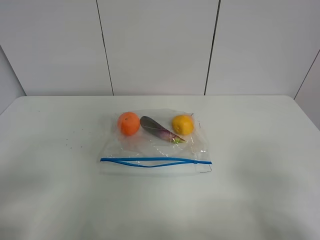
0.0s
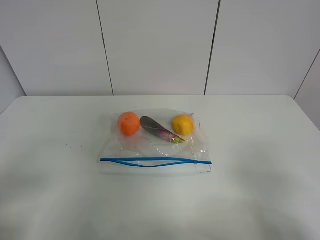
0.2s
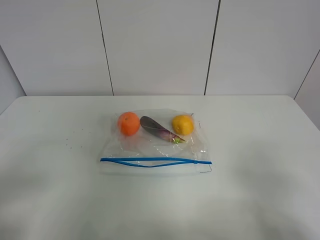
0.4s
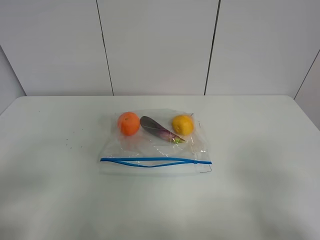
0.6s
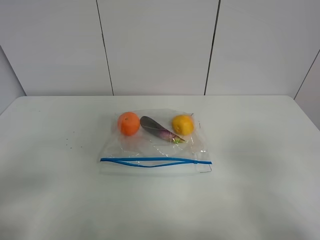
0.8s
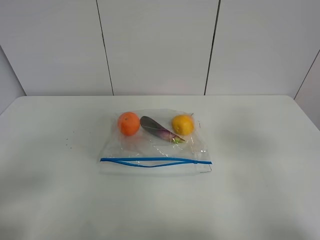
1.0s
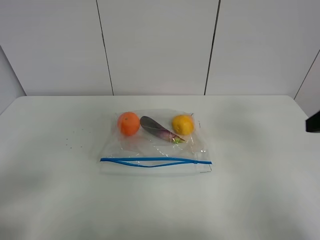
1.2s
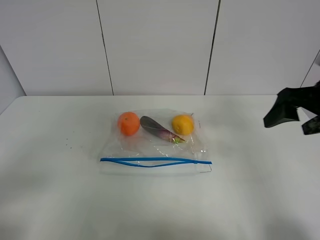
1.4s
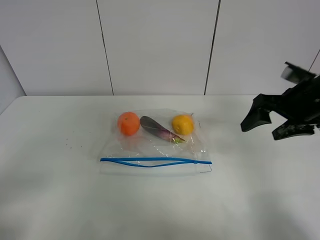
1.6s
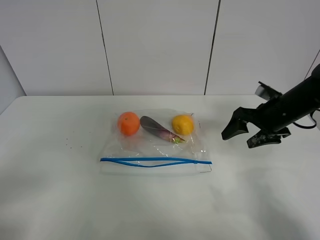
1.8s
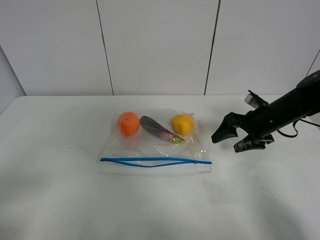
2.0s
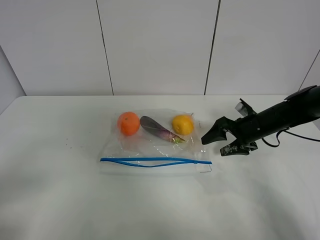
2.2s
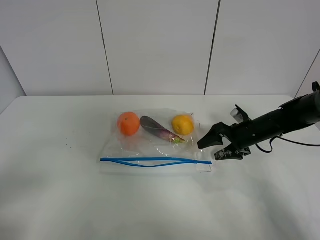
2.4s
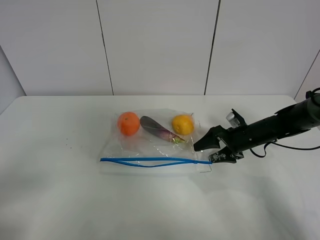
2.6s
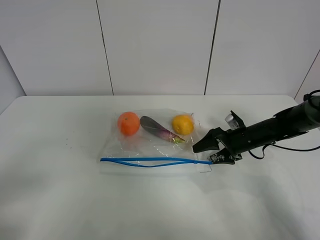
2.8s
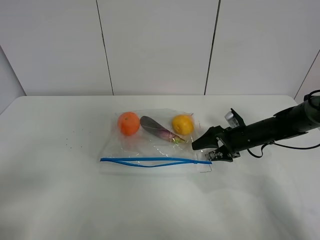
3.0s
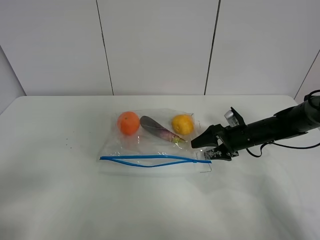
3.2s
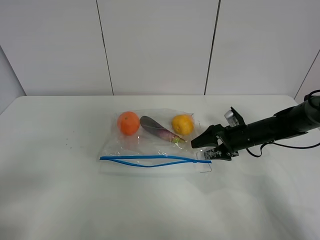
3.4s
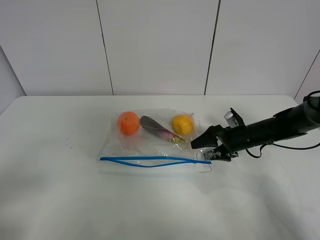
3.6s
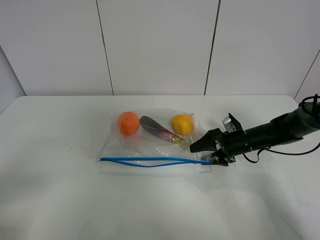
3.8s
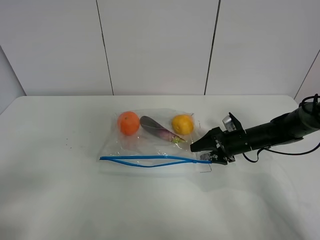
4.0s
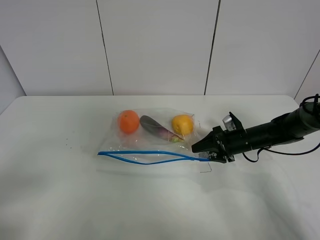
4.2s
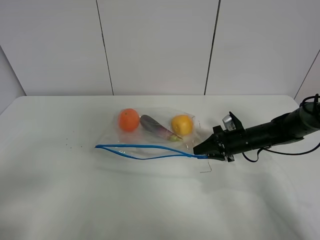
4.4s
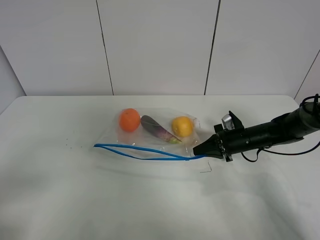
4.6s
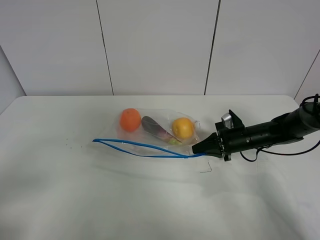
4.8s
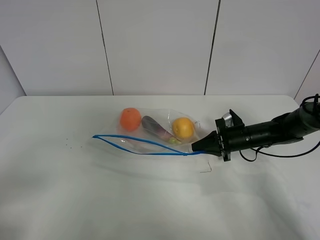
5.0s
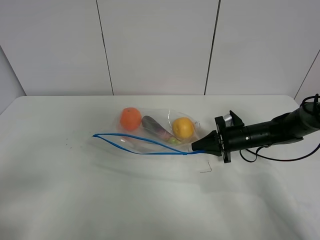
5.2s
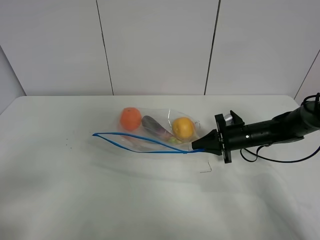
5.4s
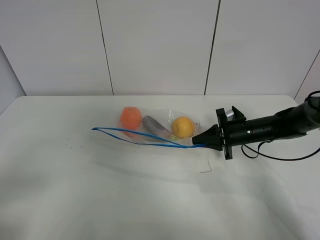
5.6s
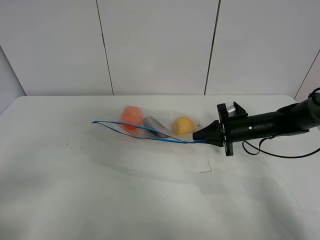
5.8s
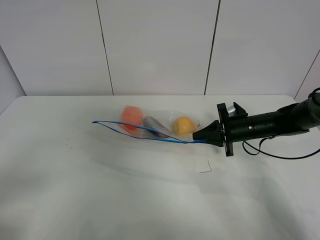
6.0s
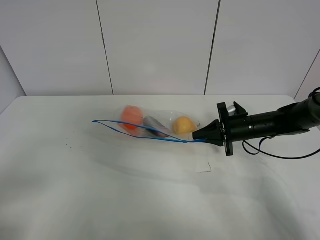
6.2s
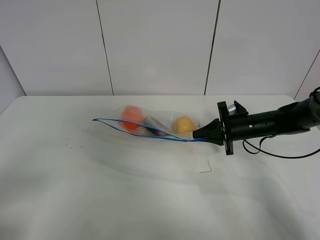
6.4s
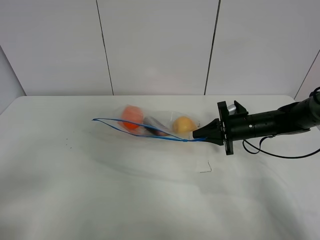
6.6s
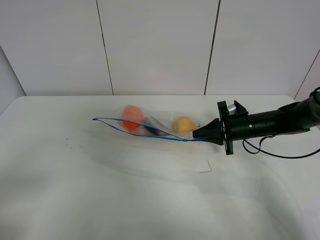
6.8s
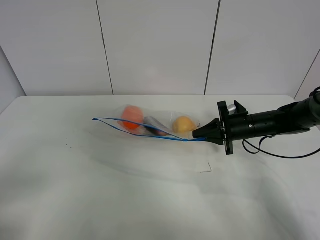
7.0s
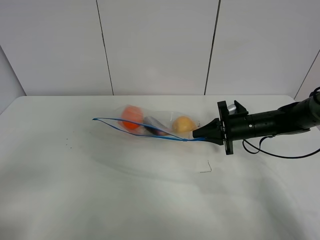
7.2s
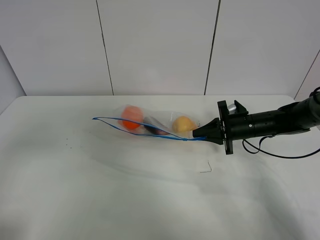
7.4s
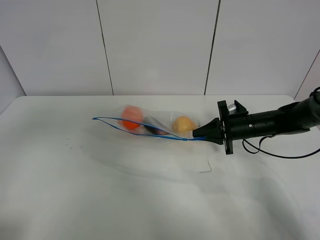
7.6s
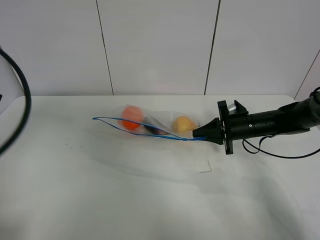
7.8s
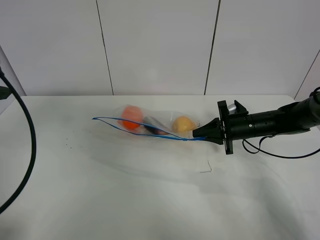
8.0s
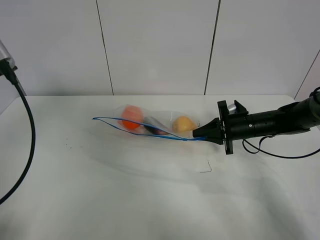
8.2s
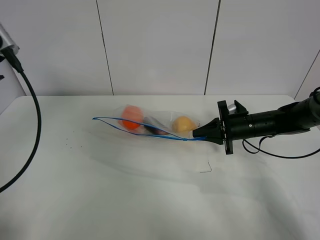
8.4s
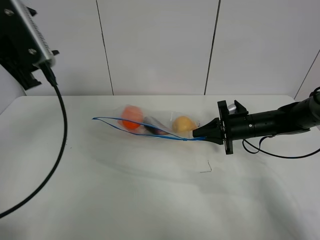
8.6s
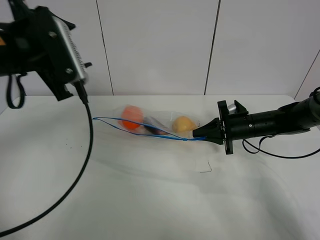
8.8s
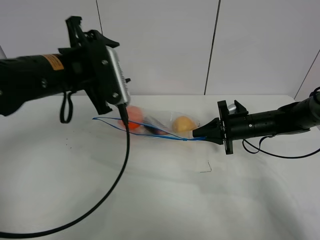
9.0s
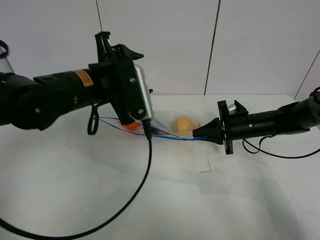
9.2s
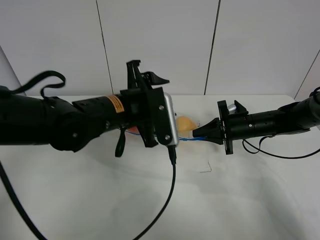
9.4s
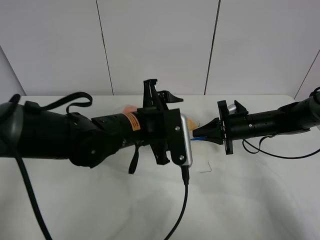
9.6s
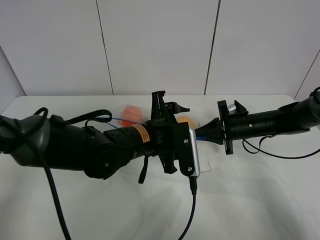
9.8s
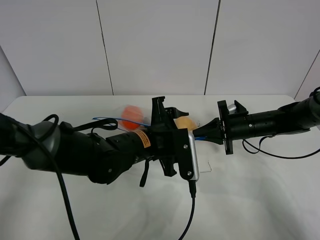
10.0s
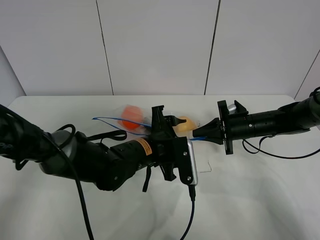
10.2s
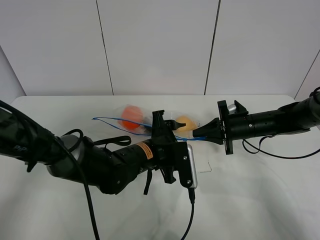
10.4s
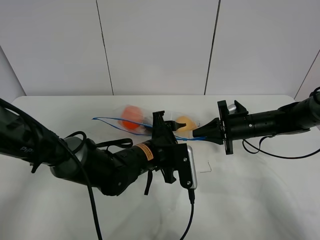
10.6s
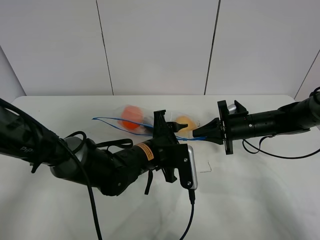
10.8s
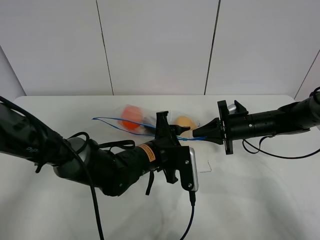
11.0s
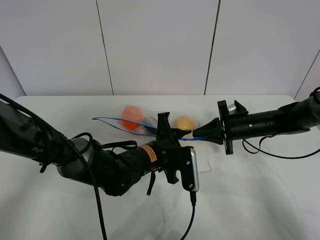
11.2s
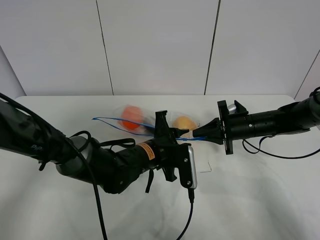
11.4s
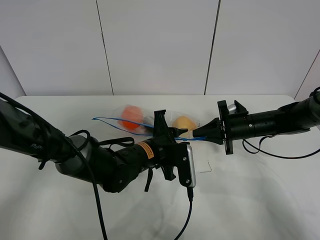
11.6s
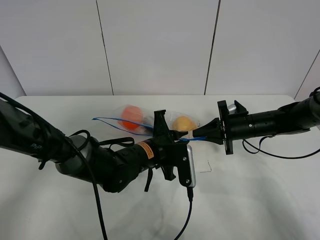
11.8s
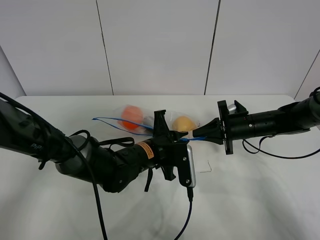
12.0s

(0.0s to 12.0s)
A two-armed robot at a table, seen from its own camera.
Step, 0.0s - 4.4s: Grasp the fruit bag with right gripper.
Step, 4.6s - 6.8s: Lift the fruit bag with your right gripper.
0.0s - 1.6s: The right gripper travels forward by some 30 cm.
1.6s - 3.0s: The right gripper goes roughly 15 cm downward.
3.0s - 4.4s: The right gripper closes.
4.4s - 6.0s: There are only small adjustments of the grippers.
6.0s - 7.6s: The left gripper heads forward and upward, covering approximately 15 cm.
7.6s - 9.0s: The left gripper moves to the right, forward and downward, roughly 25 cm.
9.0s - 10.4s: The left gripper goes some 20 cm downward and to the right.
10.4s - 12.0s: The left gripper closes its fingers.

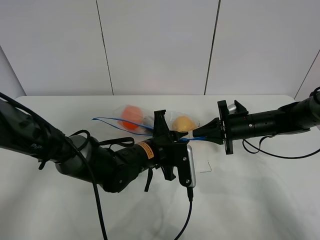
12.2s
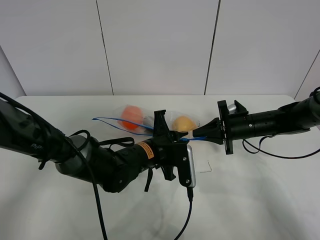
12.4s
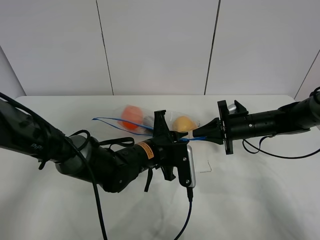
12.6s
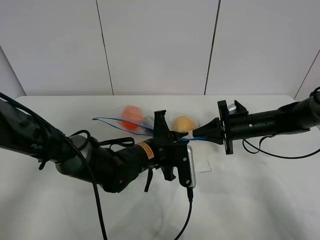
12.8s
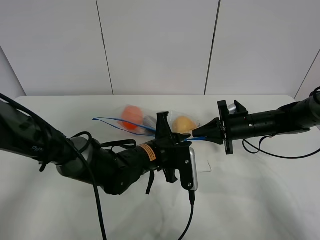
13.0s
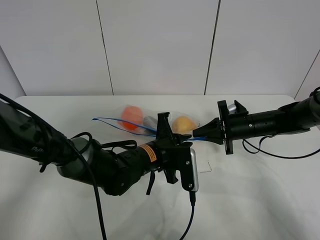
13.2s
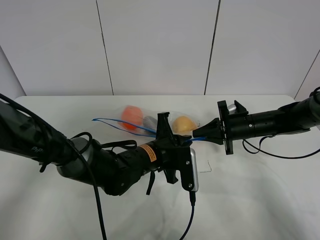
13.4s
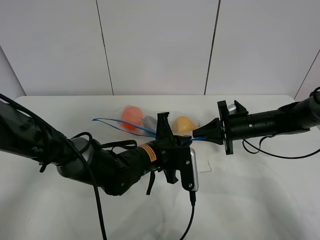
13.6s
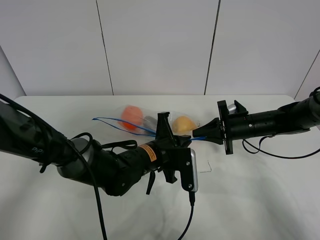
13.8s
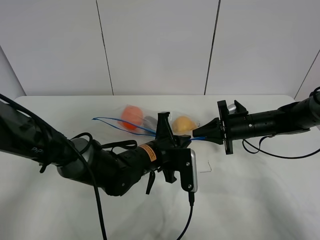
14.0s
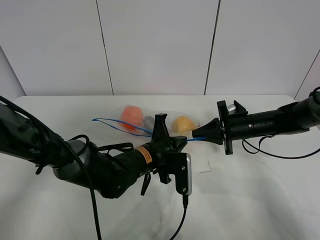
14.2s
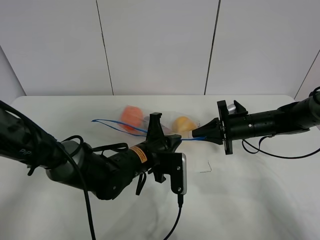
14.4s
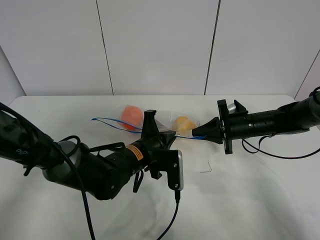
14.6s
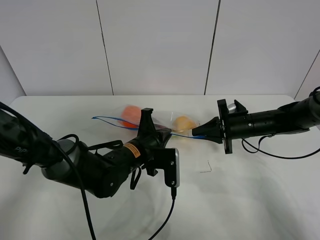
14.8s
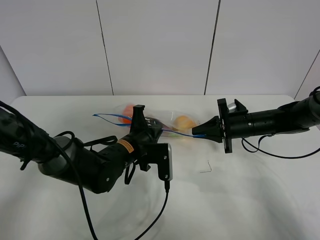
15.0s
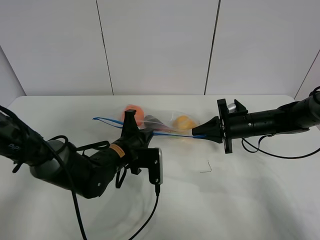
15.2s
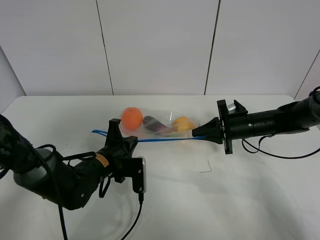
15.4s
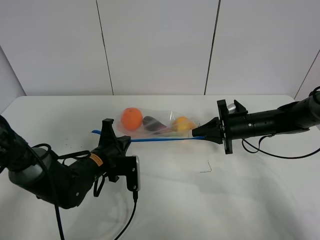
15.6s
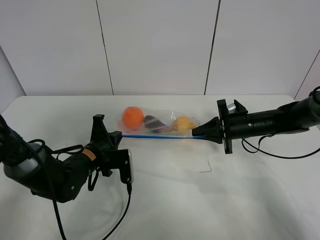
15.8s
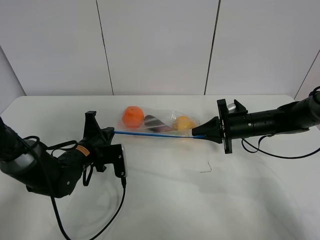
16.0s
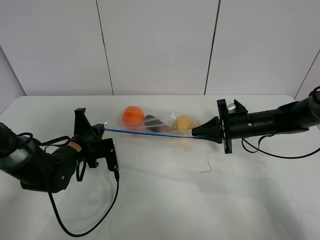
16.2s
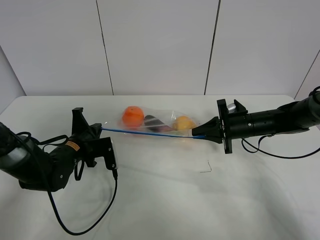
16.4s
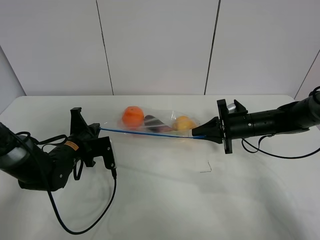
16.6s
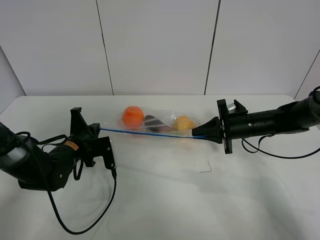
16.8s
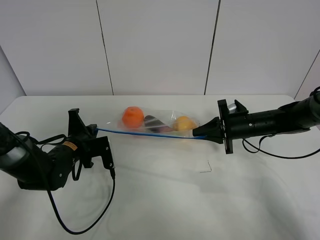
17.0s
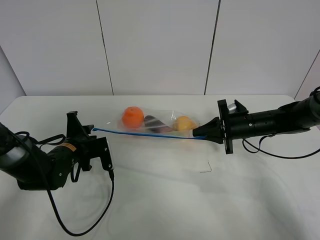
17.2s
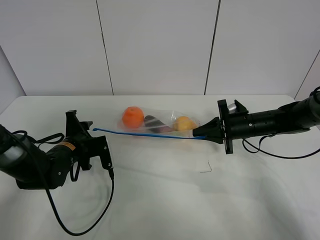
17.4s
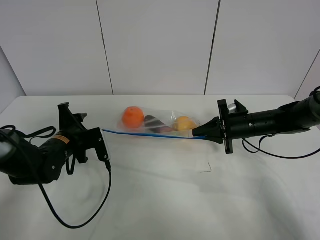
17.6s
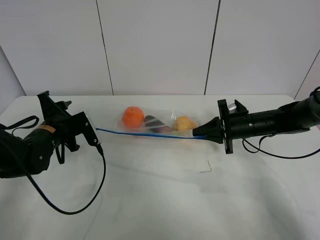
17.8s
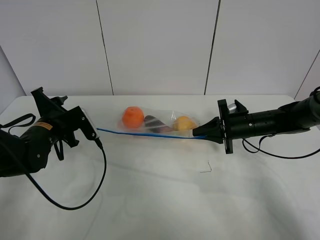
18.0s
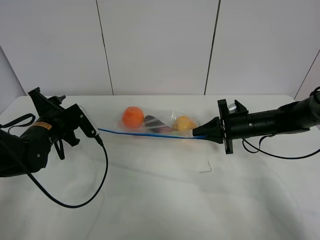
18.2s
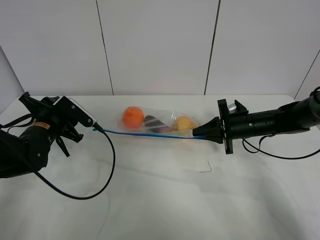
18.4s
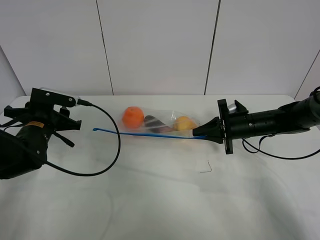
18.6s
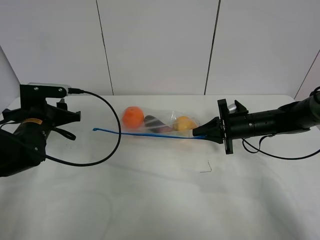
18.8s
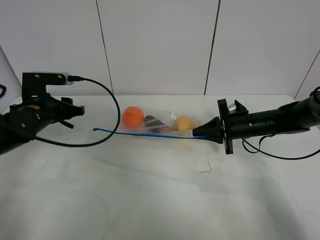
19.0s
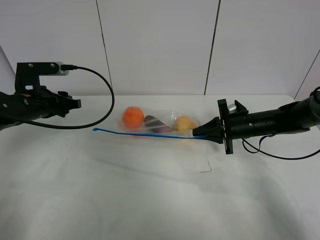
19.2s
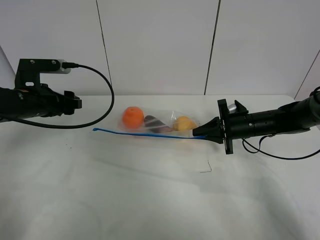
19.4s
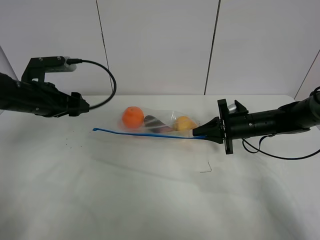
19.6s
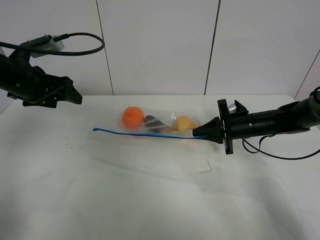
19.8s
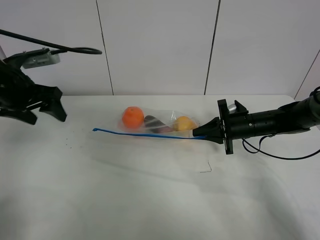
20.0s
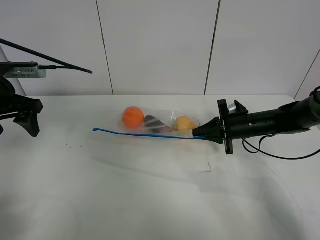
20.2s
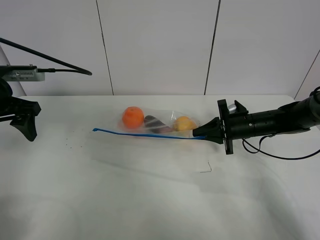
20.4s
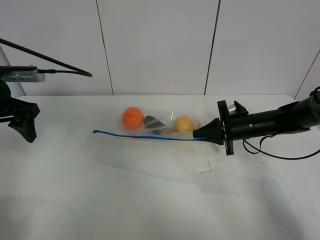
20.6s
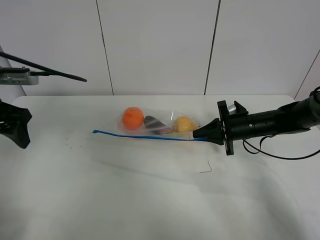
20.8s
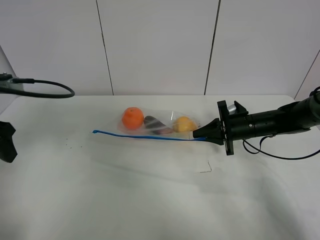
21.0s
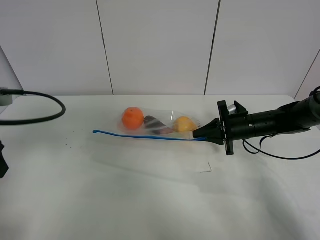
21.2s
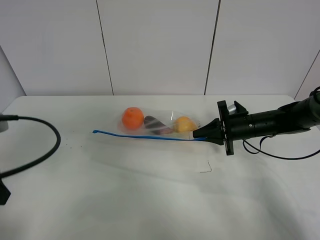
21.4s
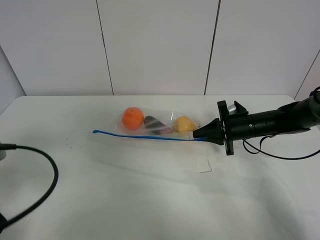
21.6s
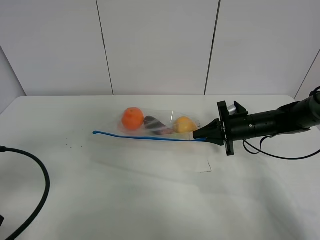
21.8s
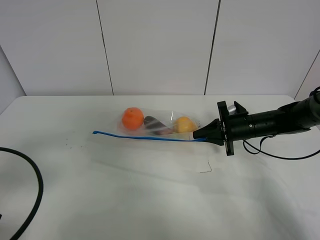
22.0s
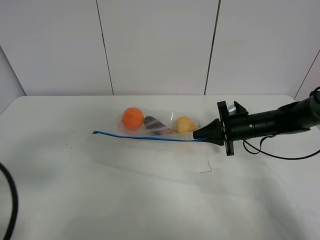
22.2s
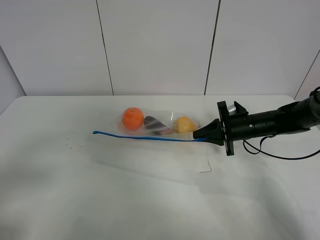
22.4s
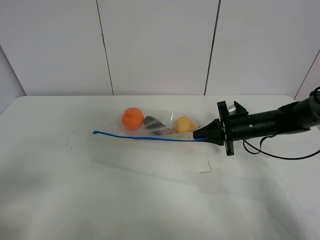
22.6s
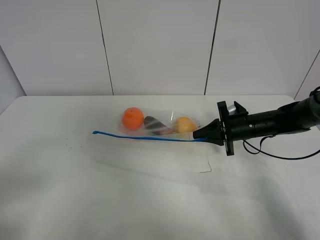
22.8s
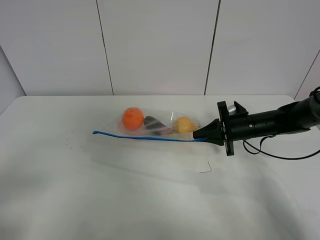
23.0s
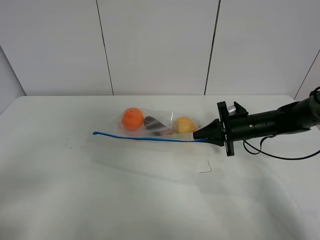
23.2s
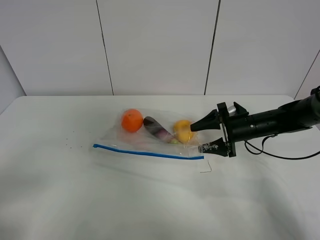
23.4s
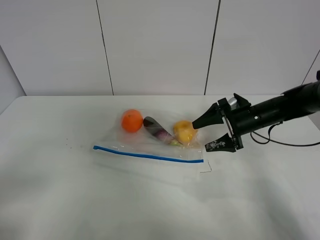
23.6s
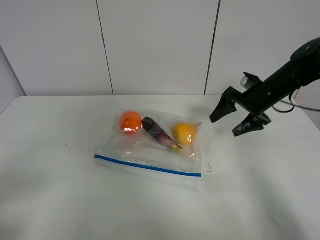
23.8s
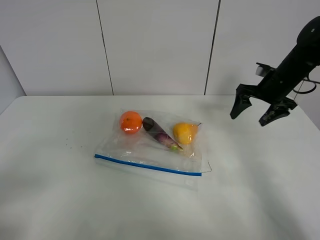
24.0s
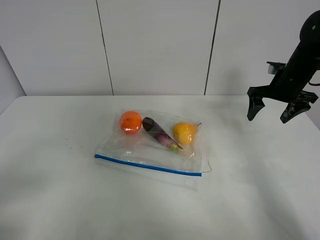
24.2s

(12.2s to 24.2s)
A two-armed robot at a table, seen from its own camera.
Step, 12.2s - 17.2s: Pull the fruit bag with left gripper.
12.2s - 13.8s: Both grippers stay put.
13.8s - 15.2s: The left gripper goes roughly 10 cm to the left.
15.2s - 16.6s: The left gripper heads to the left, covering some 10 cm.
16.6s - 18.2s: The left gripper travels upward by about 5 cm, and opens.
18.2s - 19.8s: The left gripper goes roughly 10 cm upward.
19.8s - 21.2s: The left gripper travels backward by some 15 cm.
21.2s - 22.6s: The left gripper goes approximately 15 cm backward.
22.6s - 24.2s: The right gripper travels upward and to the right by approximately 15 cm, and opens its fingers.
